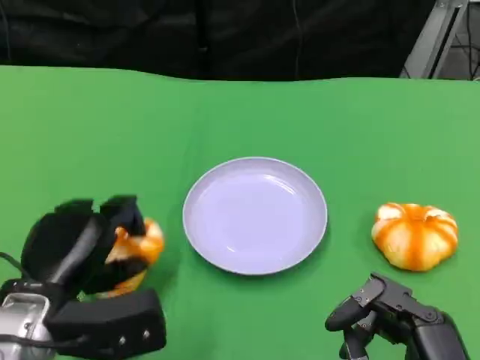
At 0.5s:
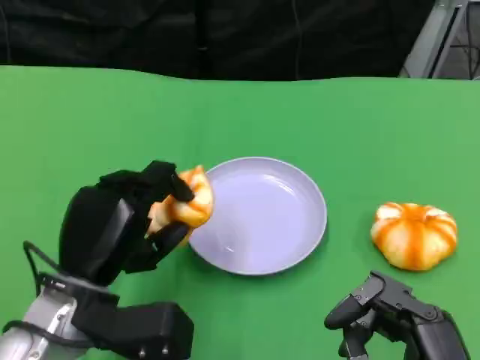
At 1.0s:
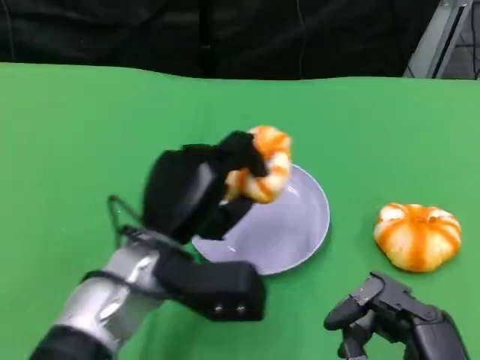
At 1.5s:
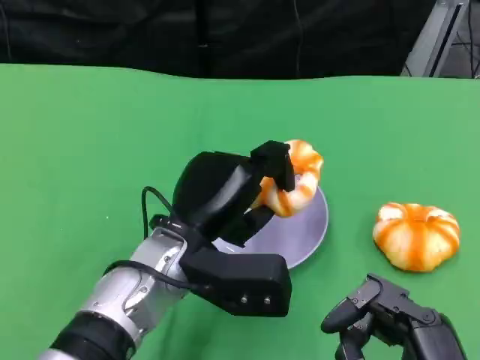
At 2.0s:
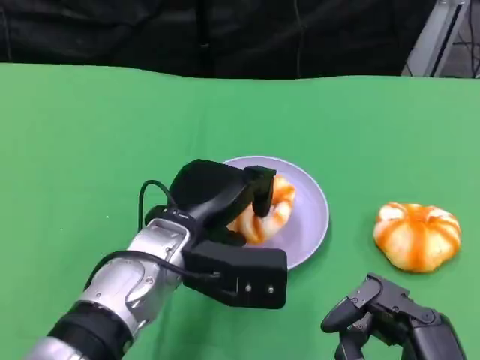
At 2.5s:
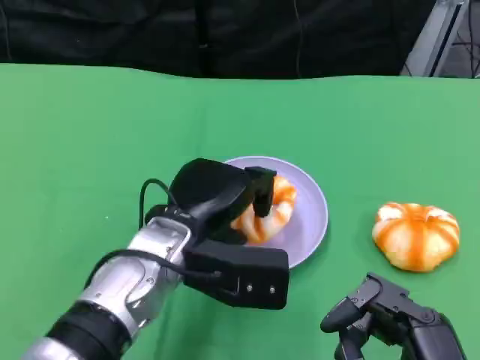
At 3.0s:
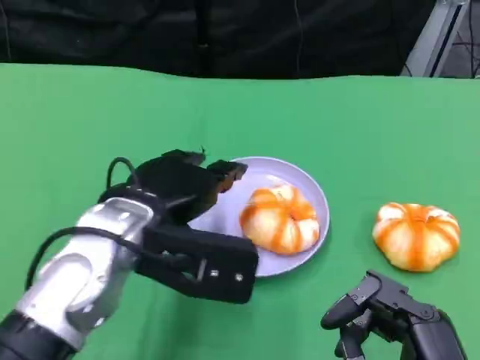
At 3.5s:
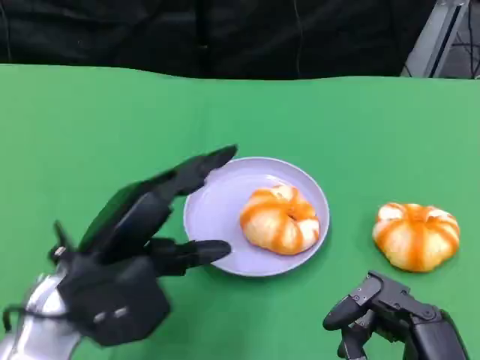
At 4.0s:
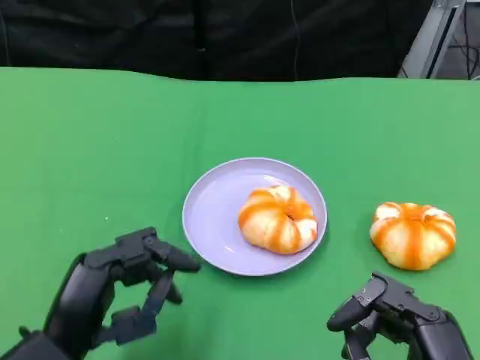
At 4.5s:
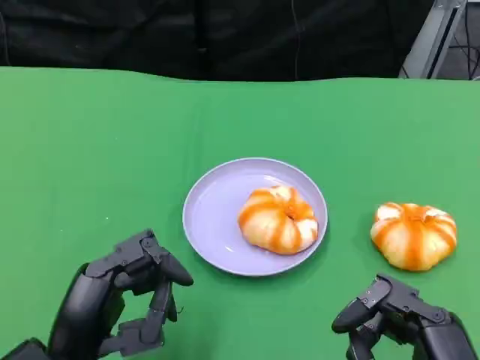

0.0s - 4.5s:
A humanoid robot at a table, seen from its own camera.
Task of the whole recording: Grasp the bread from the table and place it into the plate.
0.0s - 2.0s: The left hand is displaced to the right and forward by some 15 cm.
2.0s - 4.5s: The left hand goes some 15 cm backward and to the left.

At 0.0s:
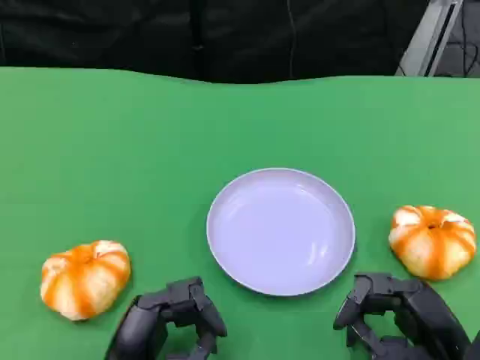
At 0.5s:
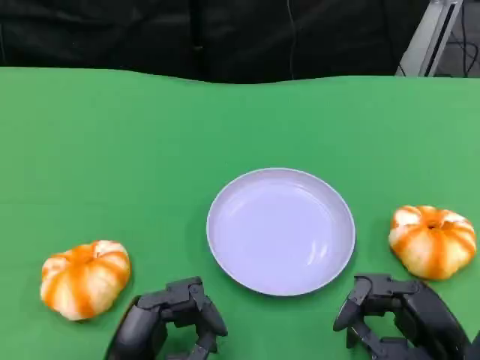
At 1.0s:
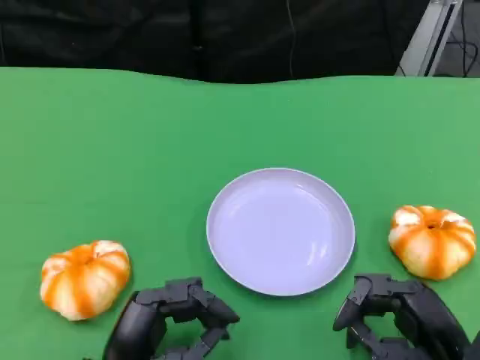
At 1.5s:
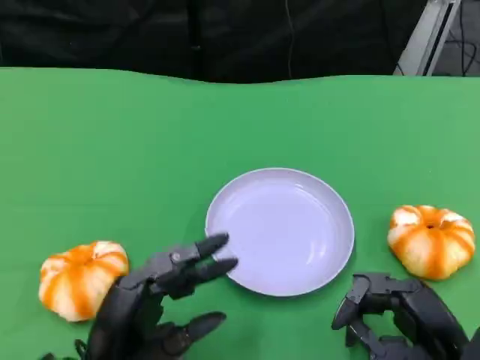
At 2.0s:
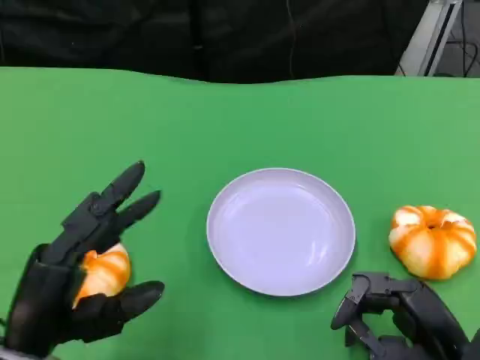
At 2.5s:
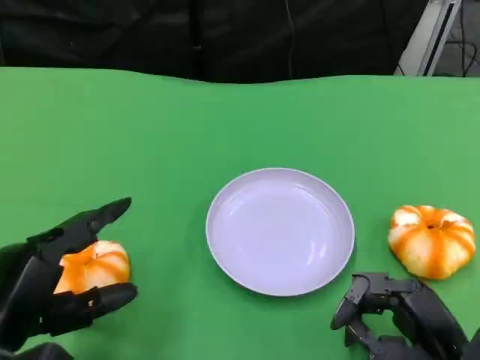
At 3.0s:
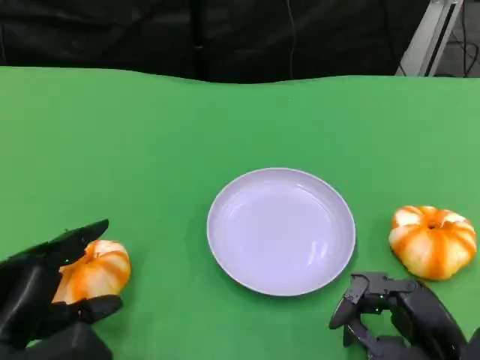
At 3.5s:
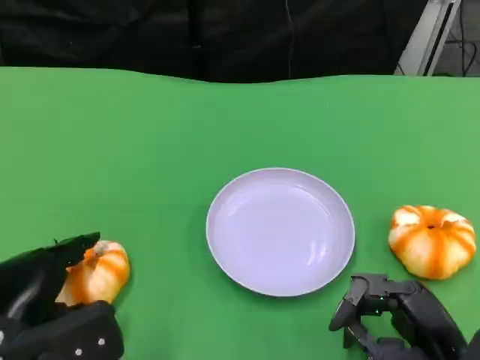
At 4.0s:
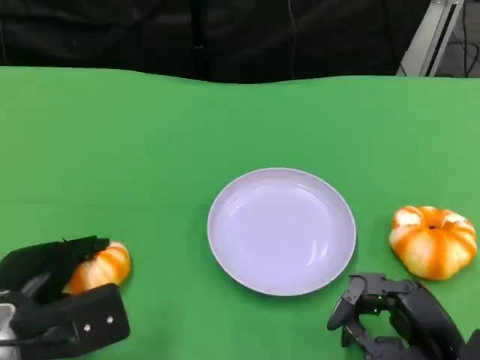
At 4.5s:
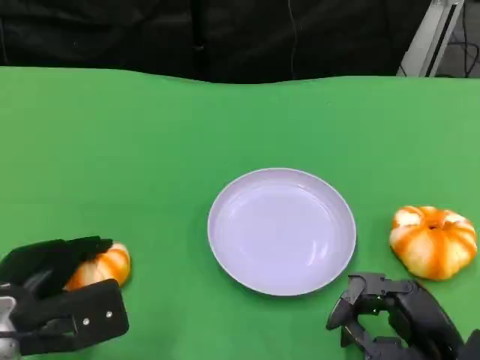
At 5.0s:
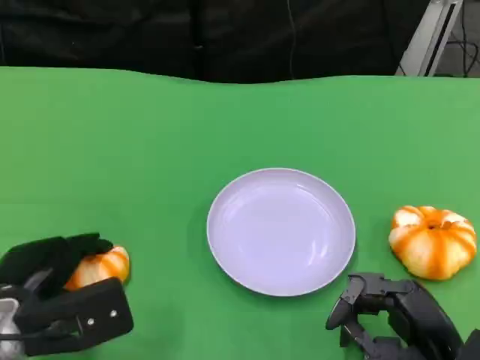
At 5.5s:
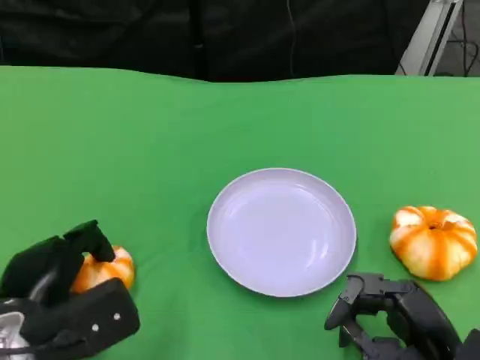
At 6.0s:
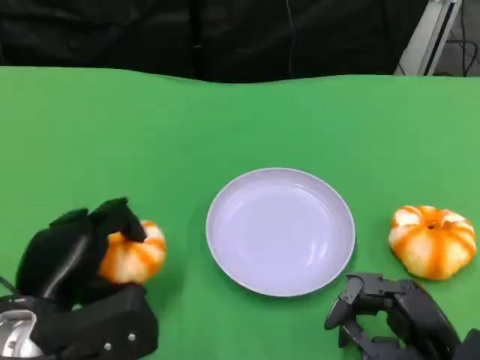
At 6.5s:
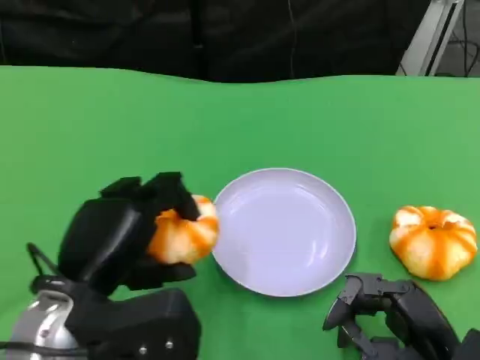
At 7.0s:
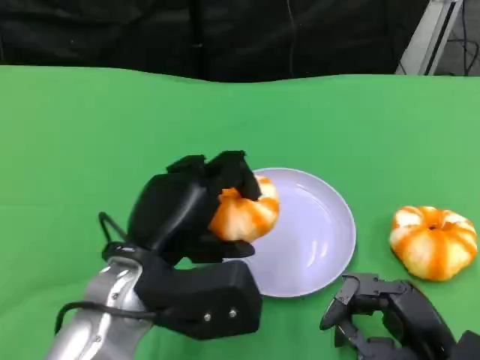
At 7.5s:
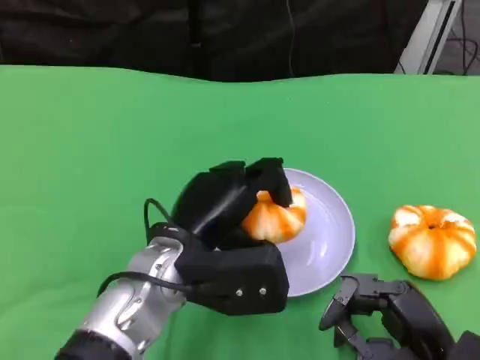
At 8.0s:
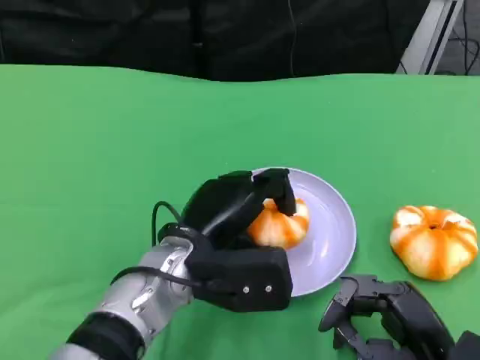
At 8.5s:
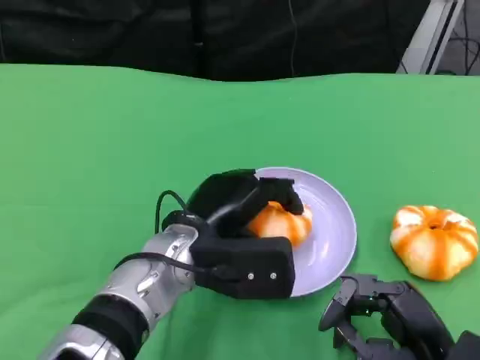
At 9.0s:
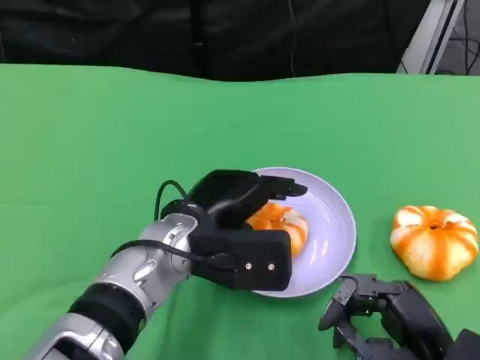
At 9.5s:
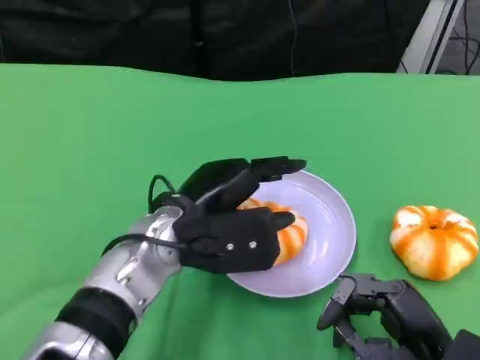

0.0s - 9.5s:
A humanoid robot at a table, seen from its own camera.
Task of the whole recording: Grasp the bread from the table and place it into the plate.
0.0s - 2.0s: The left hand travels upward and to the left by approximately 10 cm.
2.0s - 4.0s: The left hand travels forward by about 5 cm.
4.0s - 5.5s: The hands move only a little.
5.5s - 7.5s: The left hand goes some 15 cm to the right.
7.5s - 9.5s: The hands move only a little.

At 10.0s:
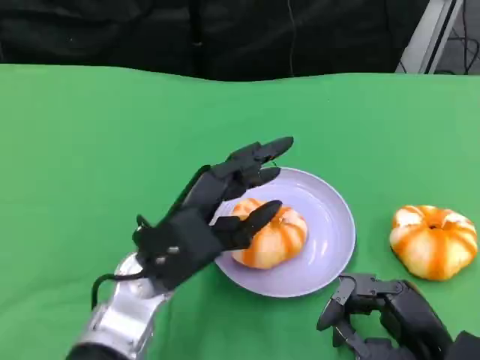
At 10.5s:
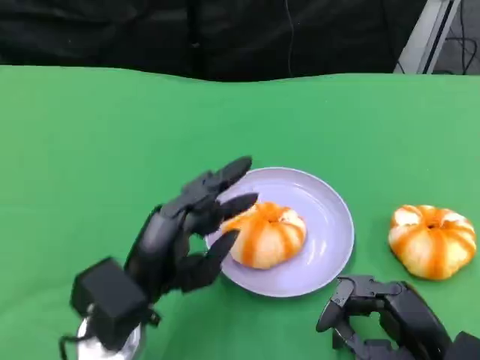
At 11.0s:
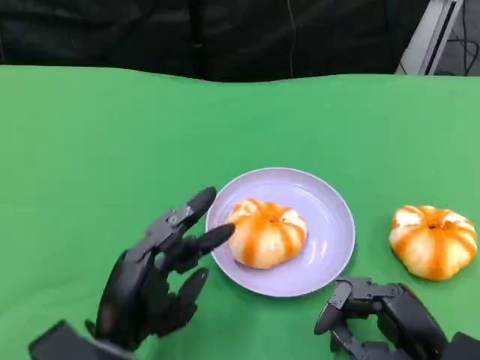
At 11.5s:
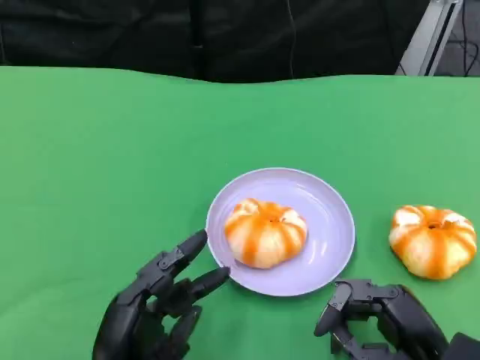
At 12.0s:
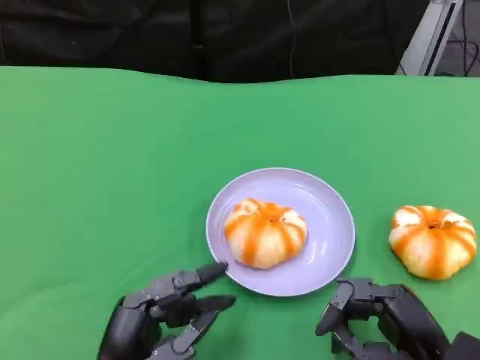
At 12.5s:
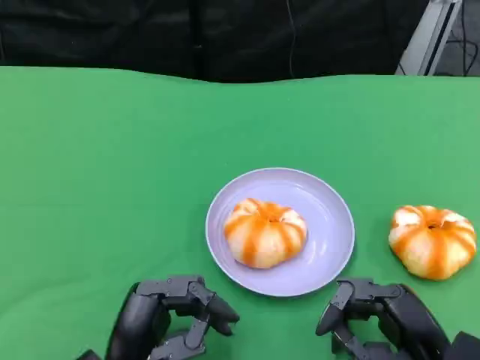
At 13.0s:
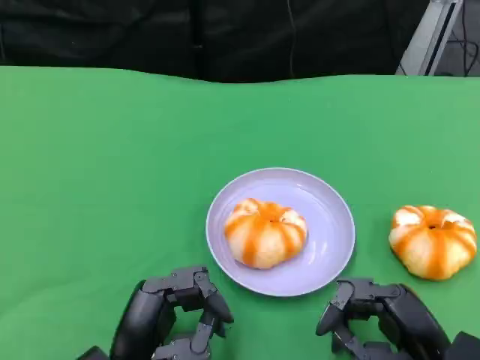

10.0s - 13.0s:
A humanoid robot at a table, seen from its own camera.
Task of the whole recording: Grasp the bread from the table and place it into the plate.
10.0s - 11.5s: The left hand shifts some 15 cm backward and downward.
11.5s - 13.0s: The hands make only small movements.

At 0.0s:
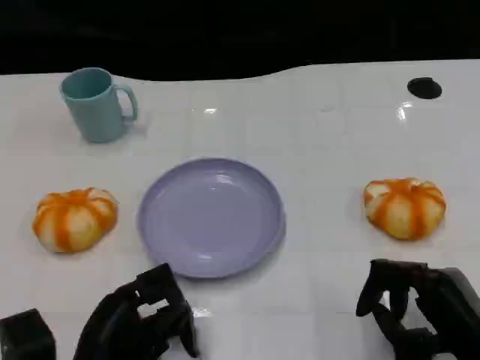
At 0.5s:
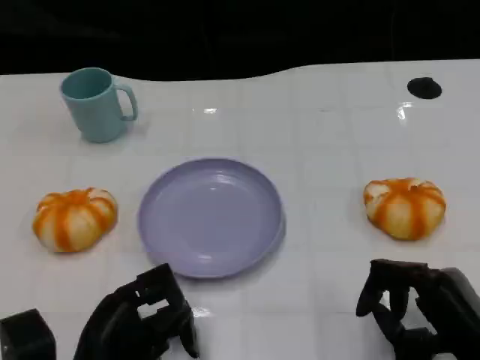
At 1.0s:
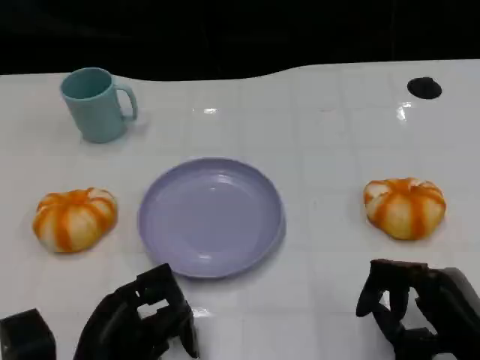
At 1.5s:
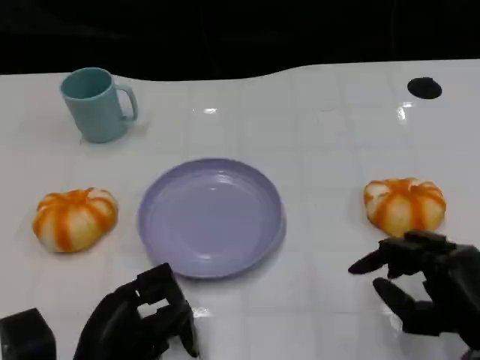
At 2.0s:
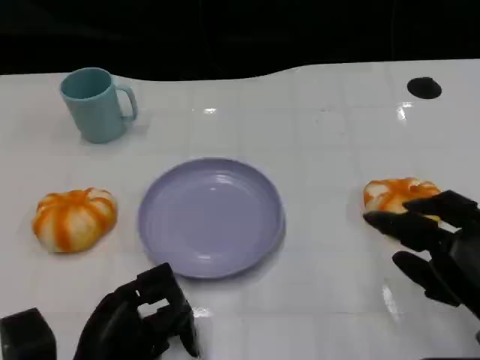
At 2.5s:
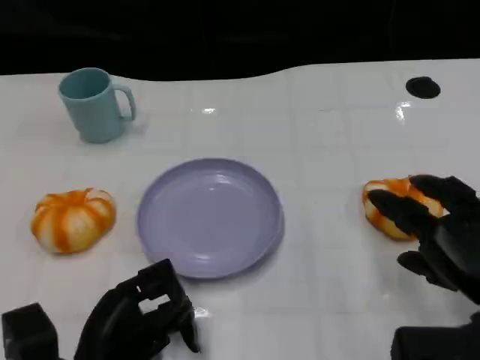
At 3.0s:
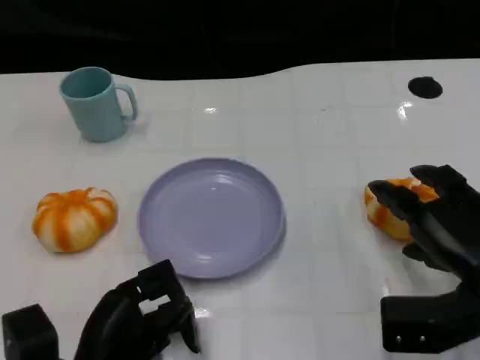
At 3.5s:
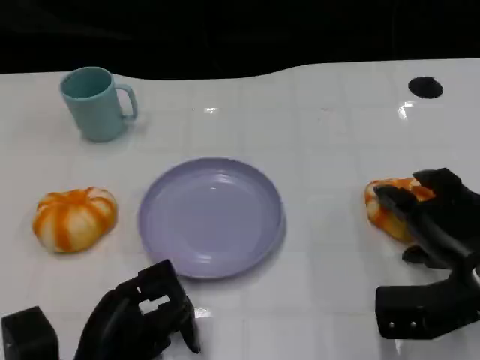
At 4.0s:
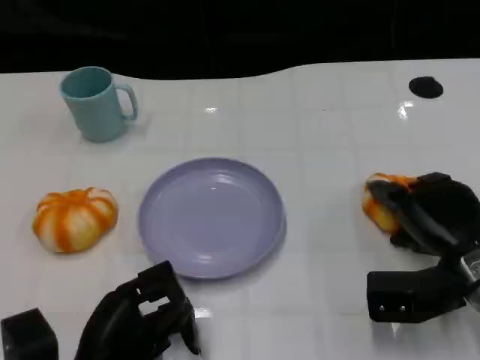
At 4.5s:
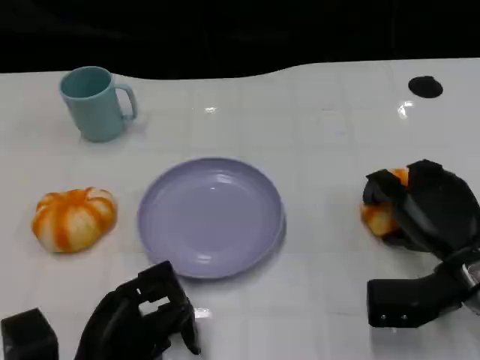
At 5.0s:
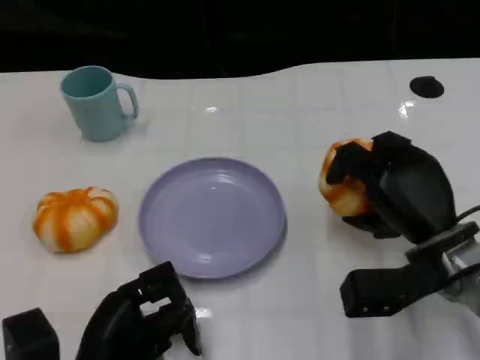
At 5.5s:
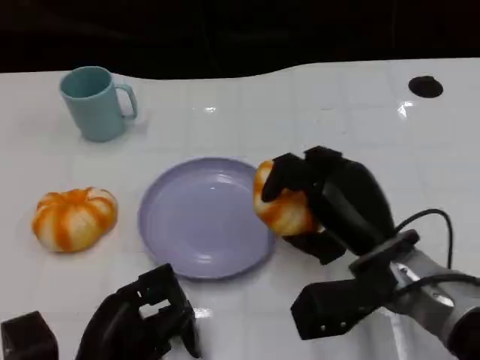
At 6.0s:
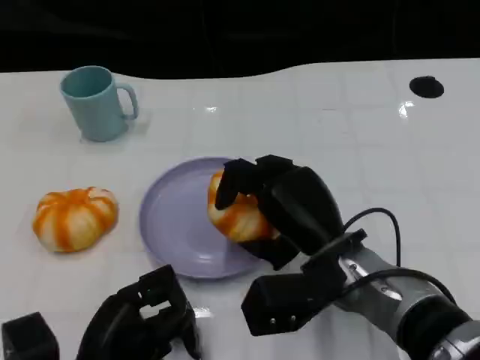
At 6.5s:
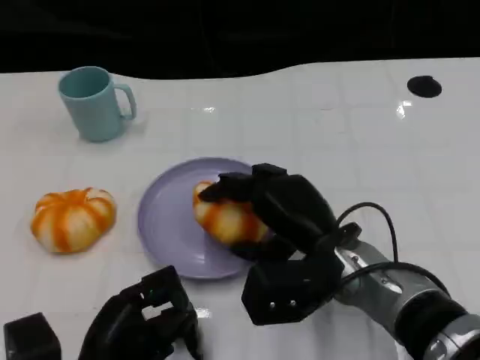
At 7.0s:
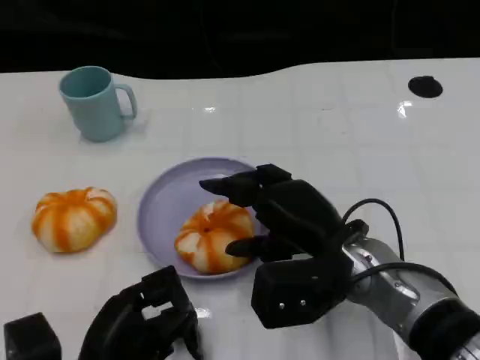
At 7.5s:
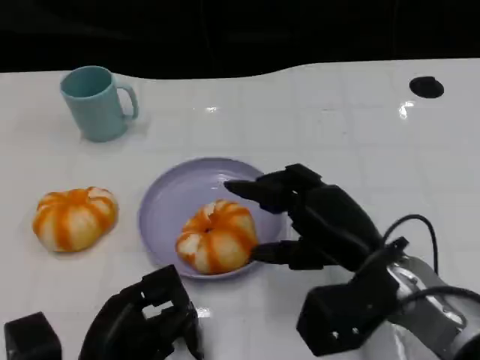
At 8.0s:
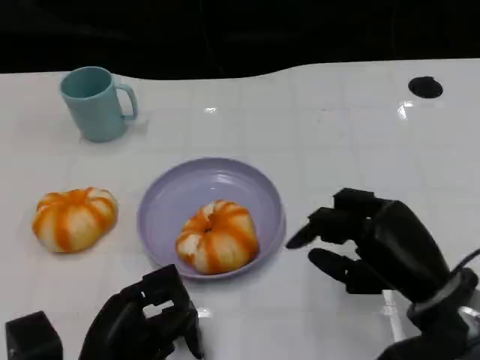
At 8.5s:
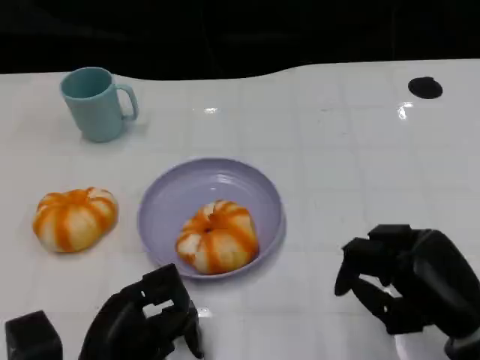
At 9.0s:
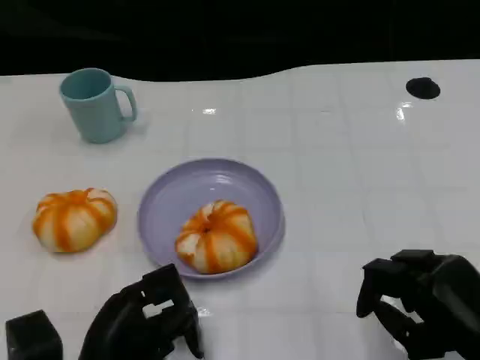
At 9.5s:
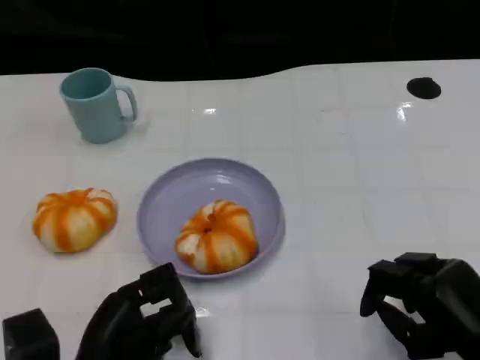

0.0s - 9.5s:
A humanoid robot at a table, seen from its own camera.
Task of the whole recording: Grasp the bread from the table and place it into the plate.
0.0s - 2.0s: The right hand ends up about 5 cm from where it was.
2.0s - 4.0s: The right hand moves forward, roughly 10 cm.
4.0s - 5.5s: The right hand goes roughly 10 cm to the left.
7.5s - 9.5s: The right hand heads to the right and backward, covering roughly 10 cm.
